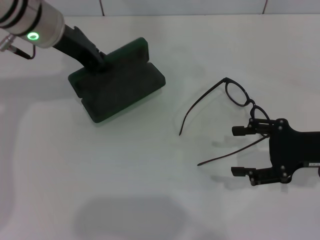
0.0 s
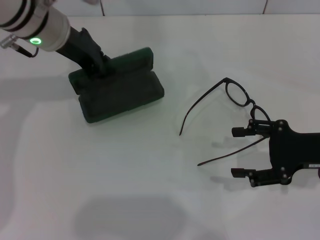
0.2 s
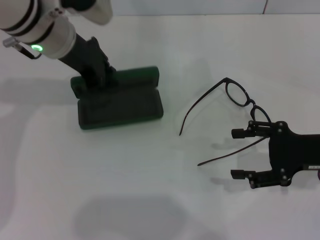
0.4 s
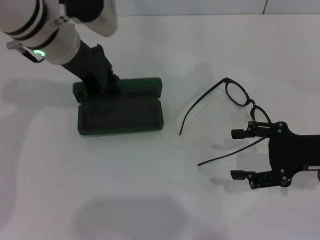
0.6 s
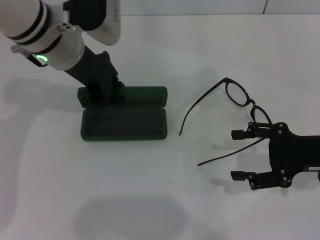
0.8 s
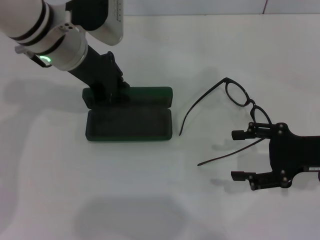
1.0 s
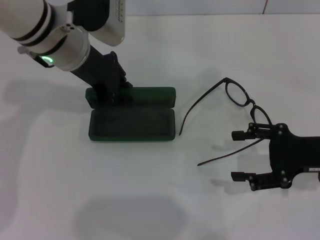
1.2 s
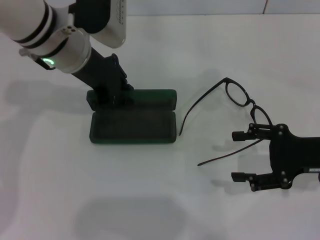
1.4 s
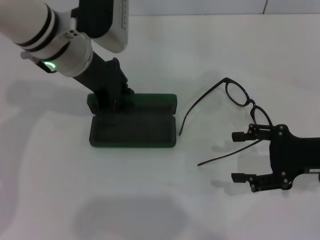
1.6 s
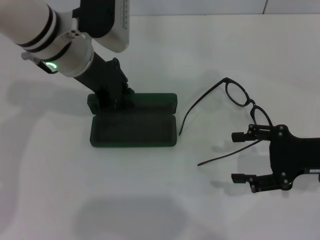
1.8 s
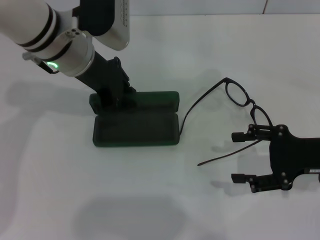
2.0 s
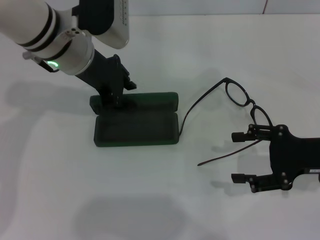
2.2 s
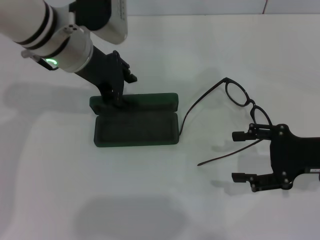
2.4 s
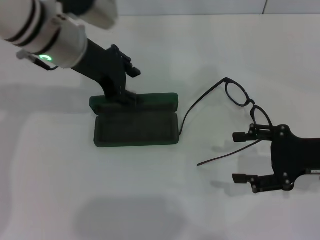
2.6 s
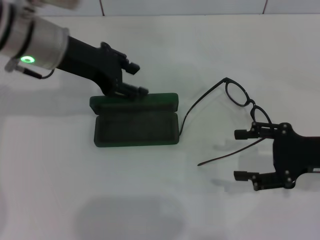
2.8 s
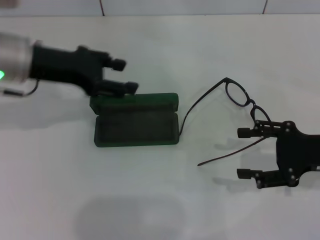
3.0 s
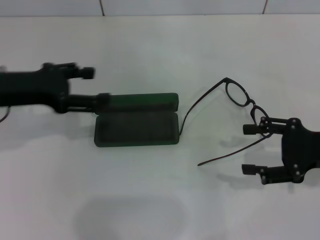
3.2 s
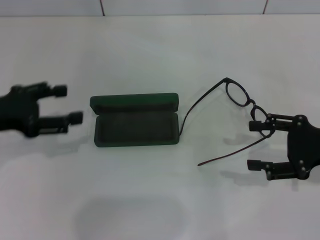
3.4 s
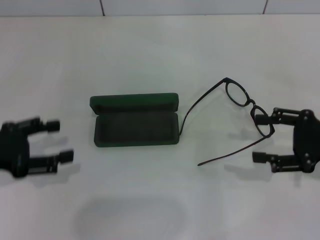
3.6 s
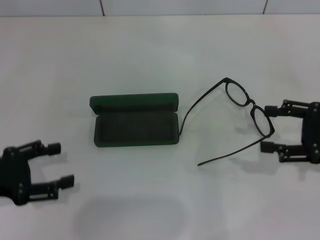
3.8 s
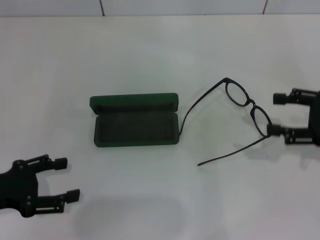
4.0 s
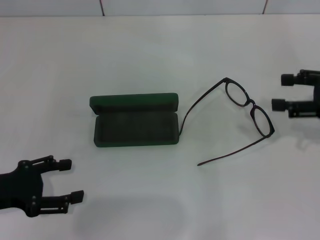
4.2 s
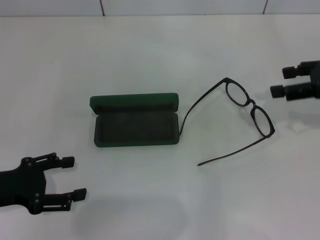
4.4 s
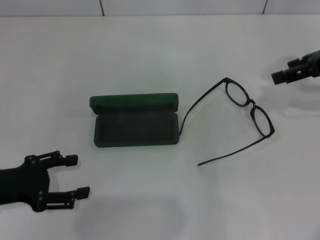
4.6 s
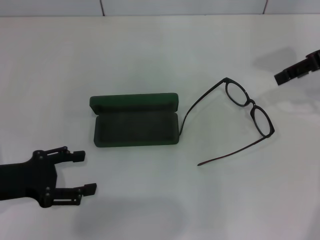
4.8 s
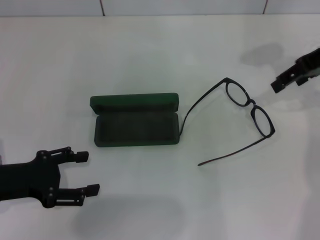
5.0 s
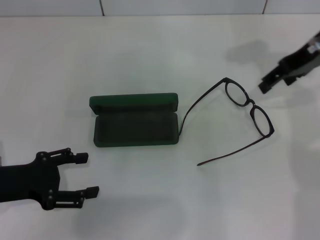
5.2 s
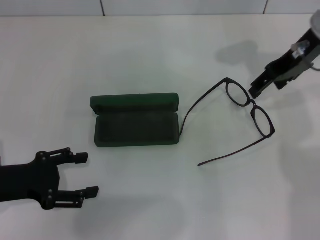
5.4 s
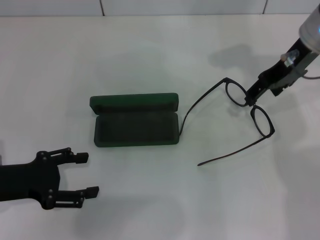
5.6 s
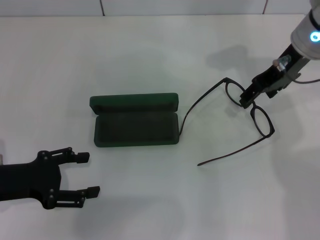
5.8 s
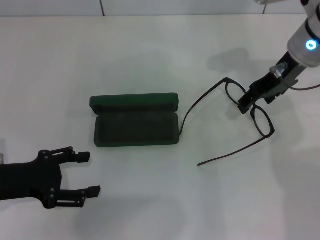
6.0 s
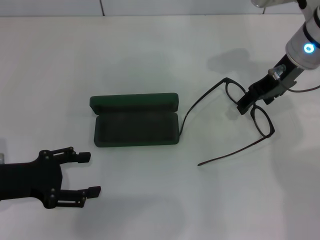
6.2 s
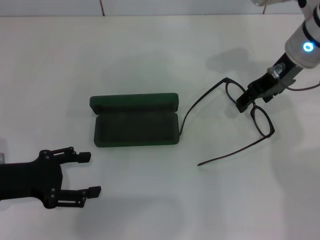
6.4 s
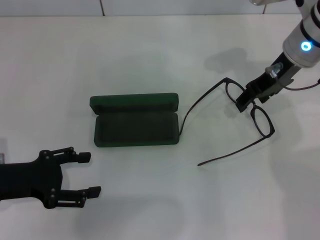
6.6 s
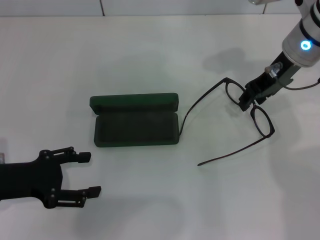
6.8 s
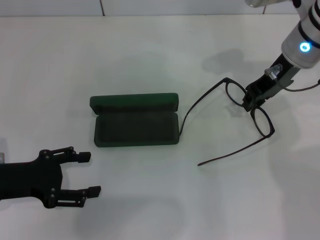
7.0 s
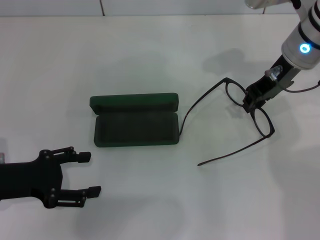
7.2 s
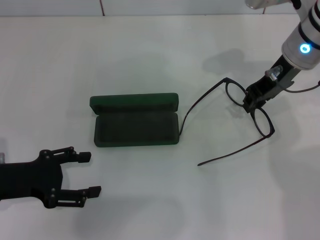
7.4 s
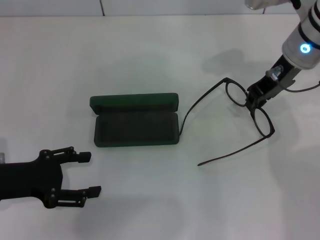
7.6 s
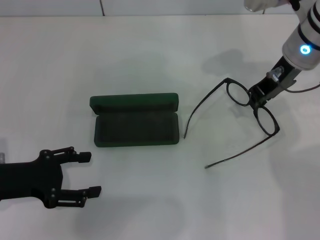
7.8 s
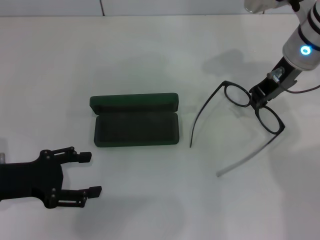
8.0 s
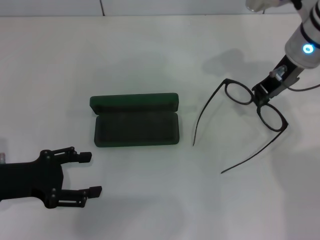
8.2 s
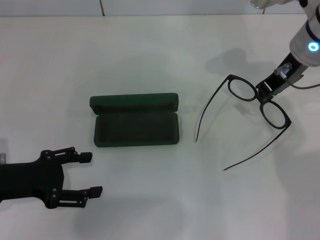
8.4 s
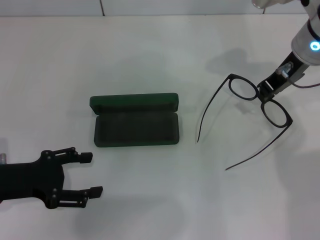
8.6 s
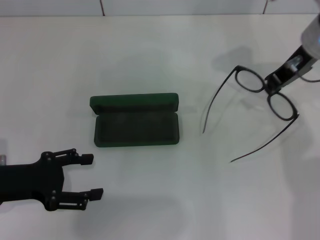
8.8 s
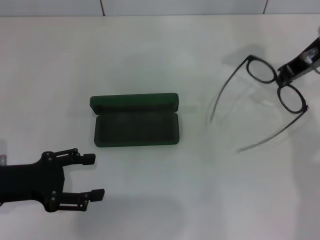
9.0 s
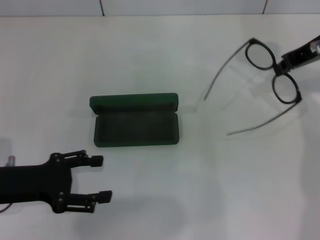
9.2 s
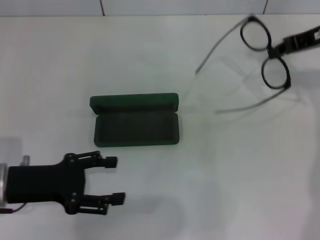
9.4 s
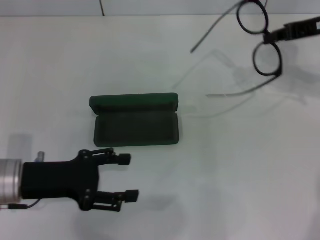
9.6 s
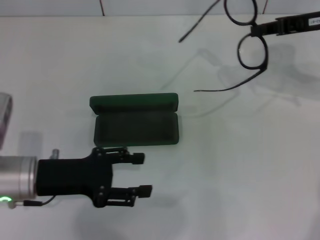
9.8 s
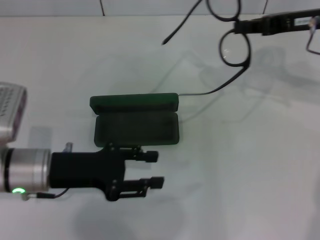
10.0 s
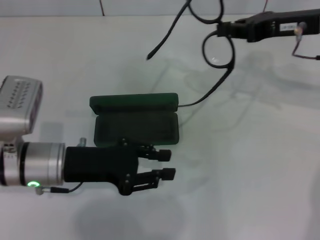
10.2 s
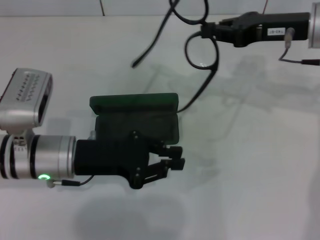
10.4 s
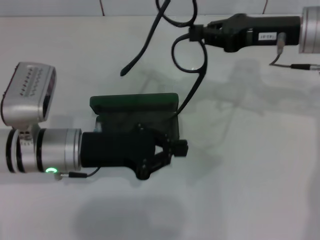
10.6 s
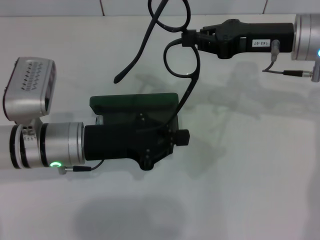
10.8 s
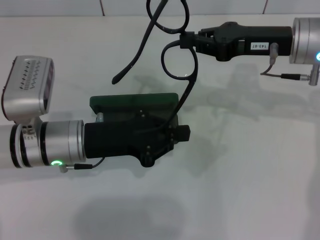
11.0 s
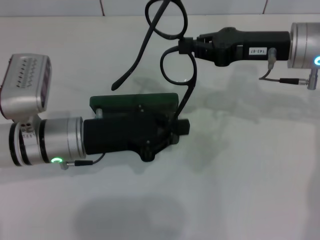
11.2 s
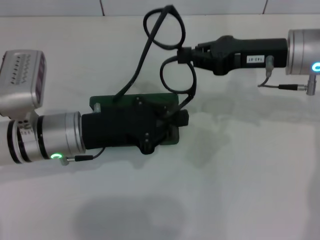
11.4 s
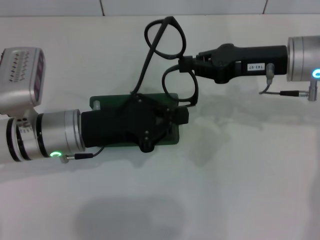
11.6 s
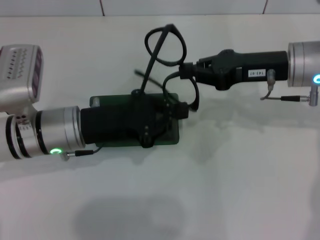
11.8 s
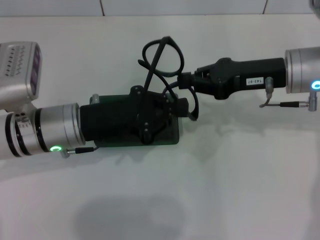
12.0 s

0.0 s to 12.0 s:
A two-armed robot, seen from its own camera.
Step, 0.0 to 2.0 s: Place the glasses case in the center of the table with your left hand.
Step, 2.4 to 7.4 s: Grab the eyeglass frame with your right hand.
1.6 to 3.0 s: The left gripper goes some 10 cm to the left, and opens.
3.0 to 4.4 s: The left gripper heads backward, downward and to the left, covering approximately 20 cm. The right gripper moves upward and forward, some 10 cm.
4.4 to 6.0 s: The right gripper shifts roughly 15 cm to the left and forward.
6.0 to 7.6 s: The right gripper closes.
7.6 to 9.0 s: The right gripper moves to the right, about 5 cm.
9.0 to 10.4 s: The left gripper is displaced to the right by about 10 cm, and closes its fingers.
10.4 to 12.0 s: The right gripper ends up approximately 5 cm from where it was, while the left gripper closes.

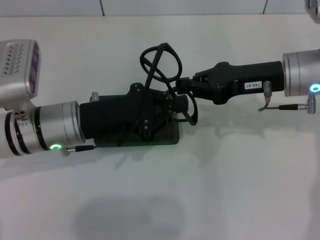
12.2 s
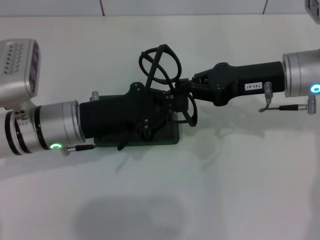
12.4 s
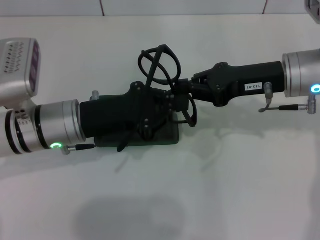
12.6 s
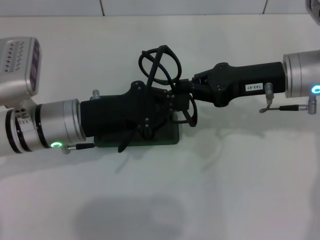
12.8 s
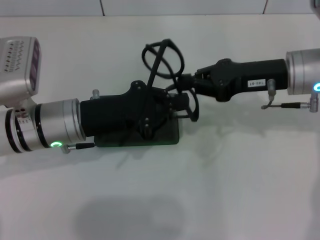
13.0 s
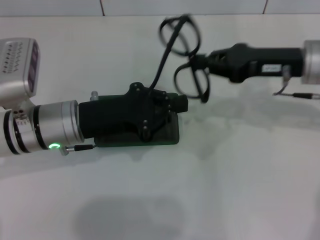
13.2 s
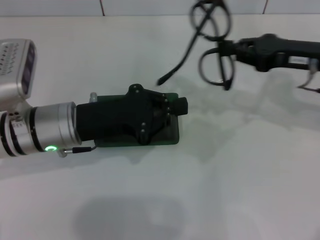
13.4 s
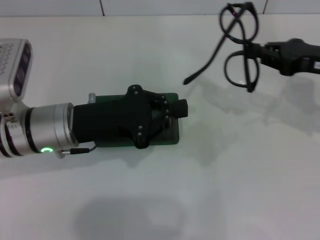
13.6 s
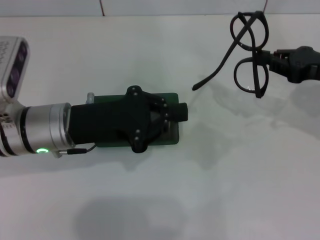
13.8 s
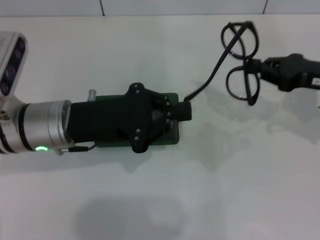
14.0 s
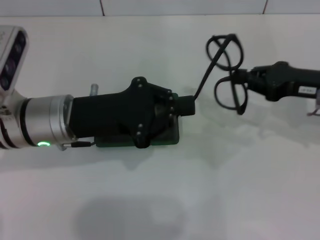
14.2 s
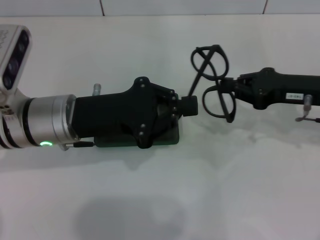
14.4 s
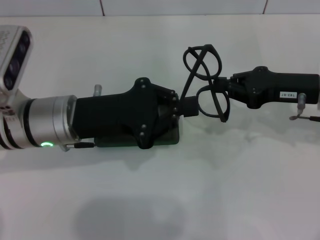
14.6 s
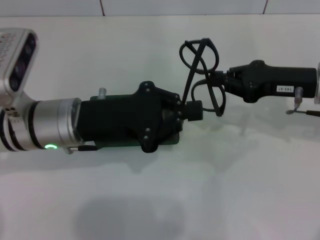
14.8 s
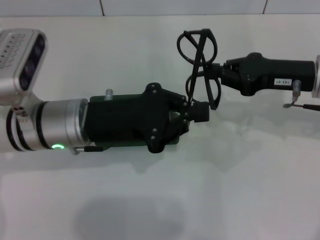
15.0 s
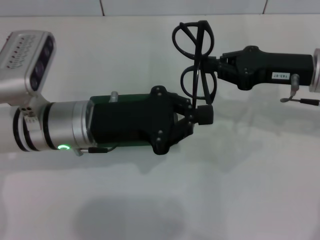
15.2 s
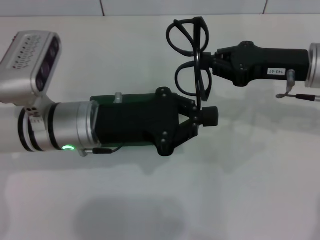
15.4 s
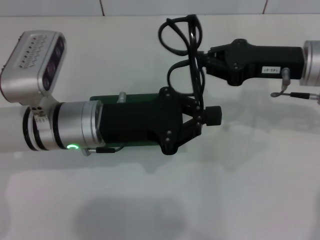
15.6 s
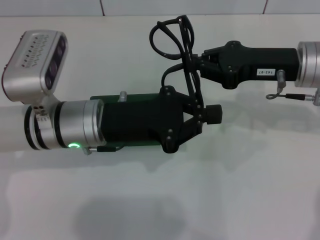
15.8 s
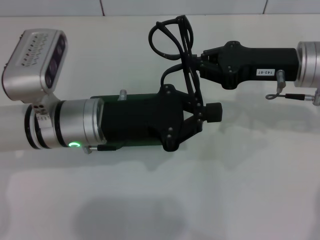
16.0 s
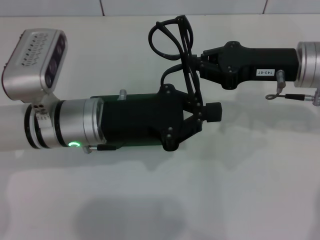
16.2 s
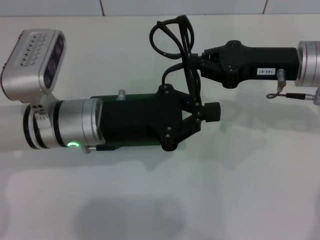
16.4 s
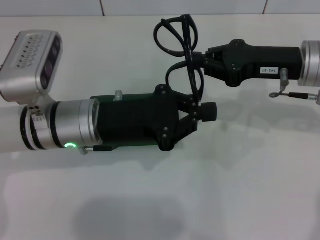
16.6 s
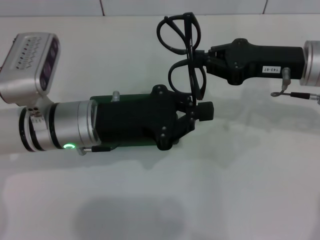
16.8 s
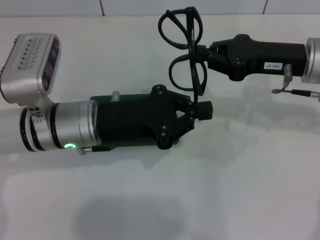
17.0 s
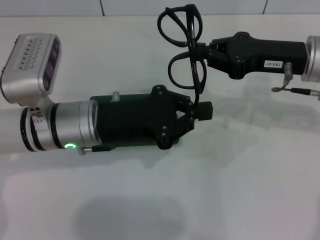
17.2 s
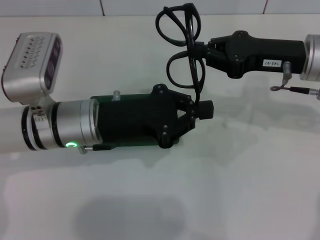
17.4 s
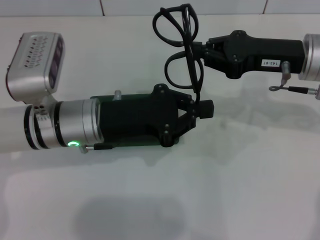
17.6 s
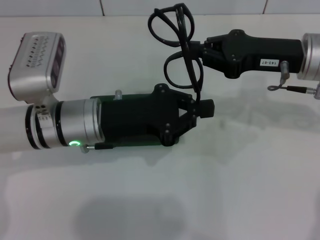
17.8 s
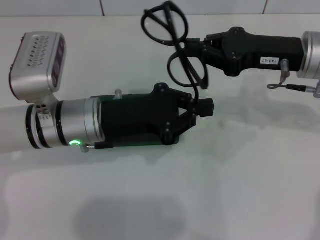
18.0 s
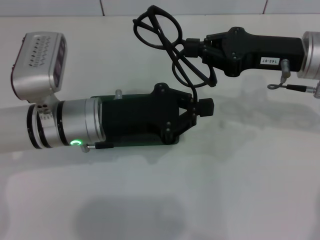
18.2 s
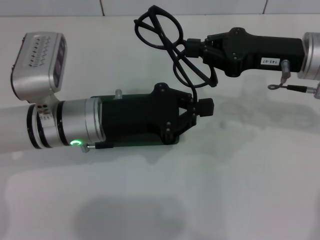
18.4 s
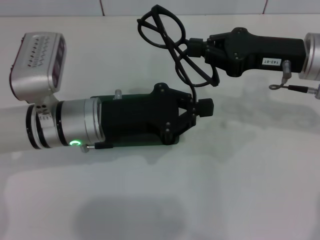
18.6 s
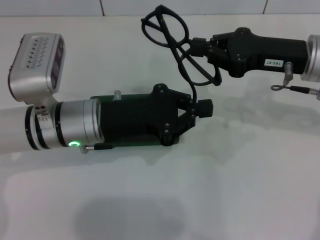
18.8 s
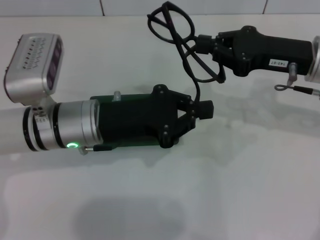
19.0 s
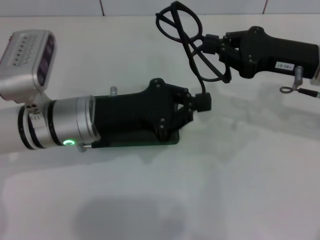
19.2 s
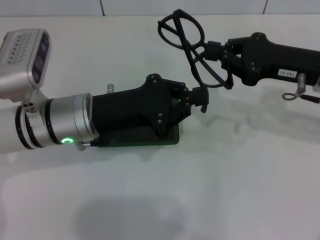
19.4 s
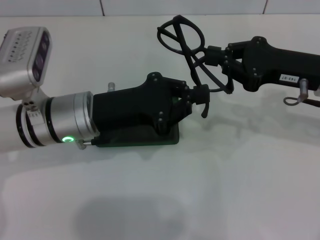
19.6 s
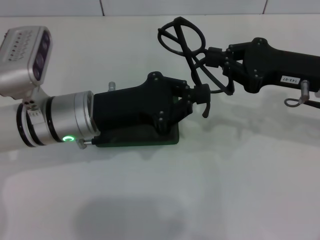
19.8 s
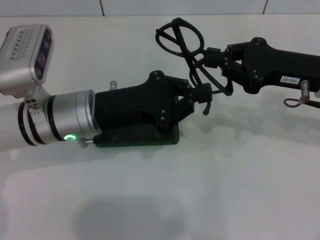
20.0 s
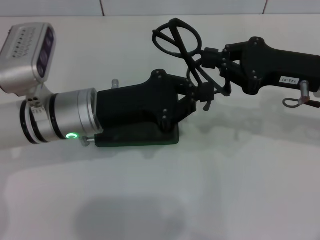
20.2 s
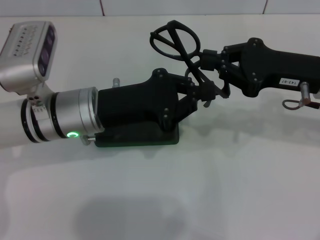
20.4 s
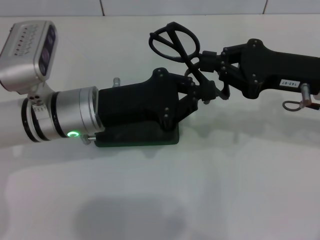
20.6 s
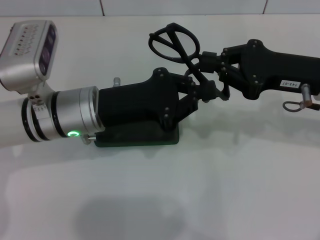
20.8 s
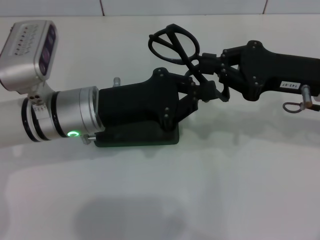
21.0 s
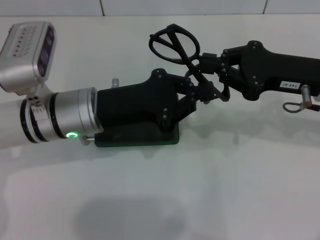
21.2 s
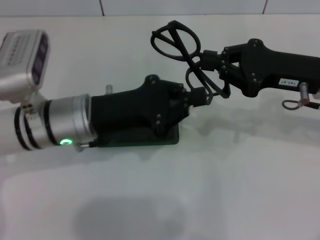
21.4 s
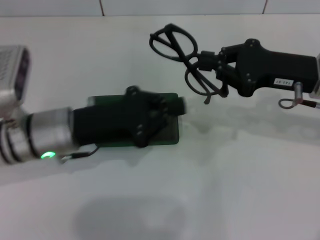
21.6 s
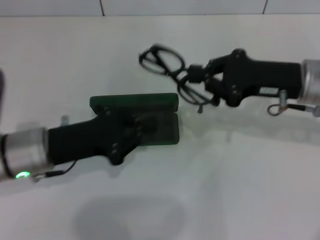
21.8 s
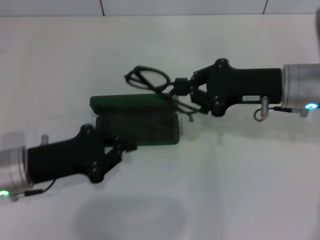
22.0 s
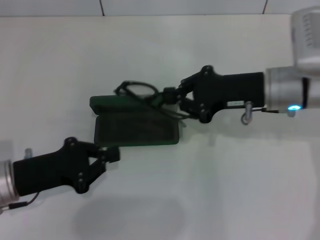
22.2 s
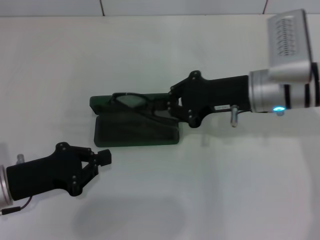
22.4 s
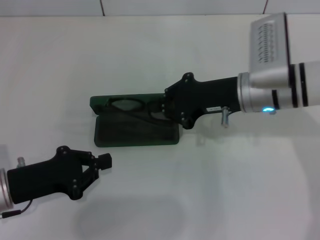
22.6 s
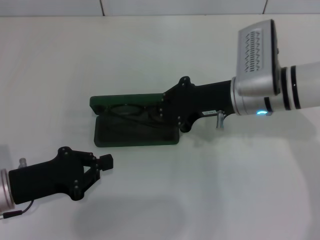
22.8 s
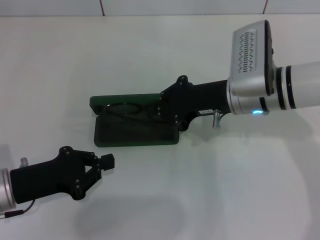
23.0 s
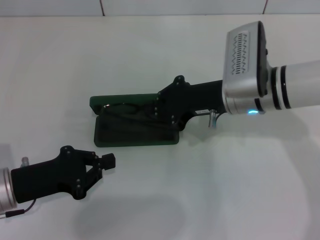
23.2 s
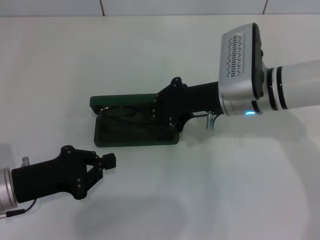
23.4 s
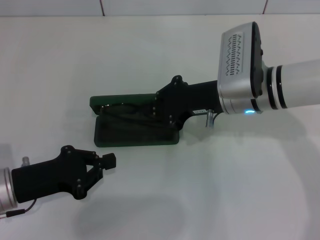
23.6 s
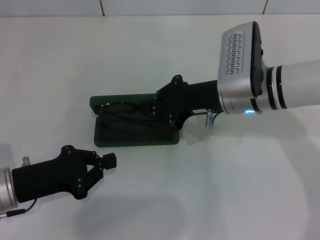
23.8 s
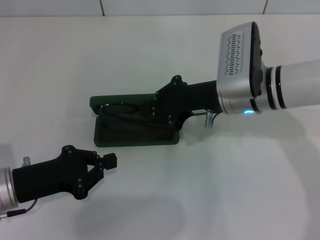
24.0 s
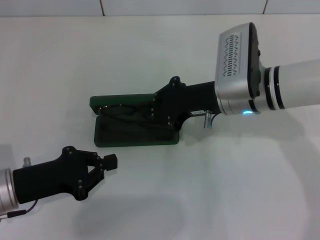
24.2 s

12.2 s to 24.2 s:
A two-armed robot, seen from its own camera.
Step, 12.2 to 21.2 s: Fold the frame with your left hand.
12.2 to 13.8 s: The right gripper moves to the right, approximately 10 cm.
13.8 to 15.2 s: The right gripper shifts approximately 5 cm to the left.
15.2 to 18.2 s: The grippers stay close to where they were, moving slightly.
19.8 to 21.2 s: The grippers stay close to where they were, moving slightly.
21.2 to 22.6 s: The right gripper is displaced to the left by roughly 10 cm. Meanwhile the left gripper moves to the left, backward and downward, about 15 cm.
22.6 to 24.2 s: The grippers move only a little.
